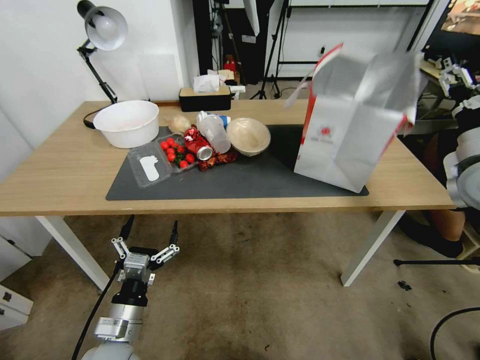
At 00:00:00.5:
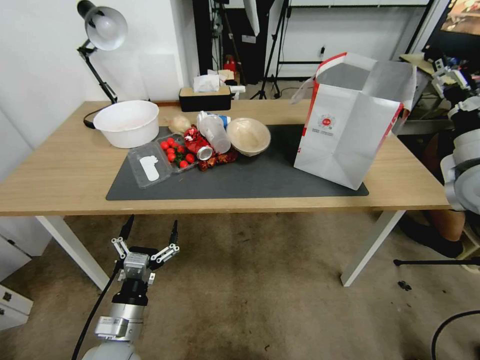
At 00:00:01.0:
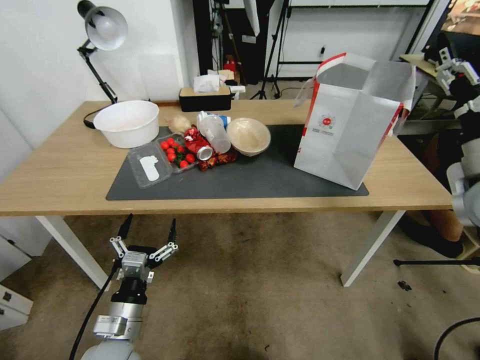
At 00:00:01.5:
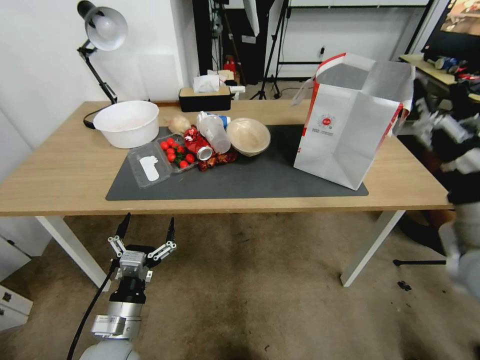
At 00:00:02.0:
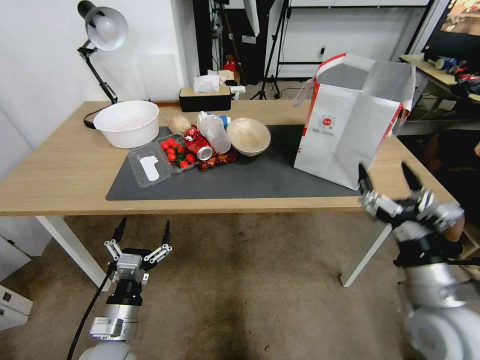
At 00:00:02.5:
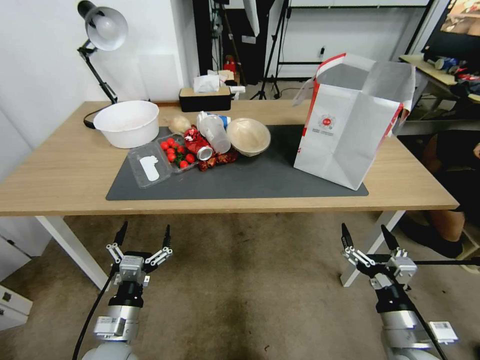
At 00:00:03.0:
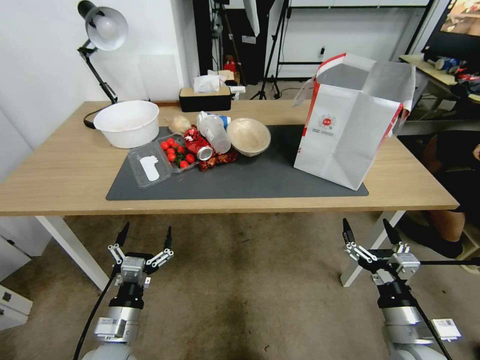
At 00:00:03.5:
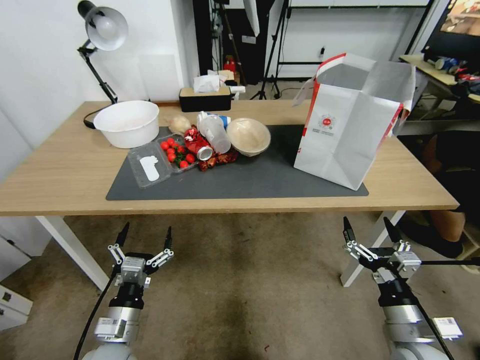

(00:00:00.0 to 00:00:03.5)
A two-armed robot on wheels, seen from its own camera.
Task of the whole recording: Pick up the food delivery bag from the floor and place it on the table.
00:00:00.0 - 00:00:02.0: The right gripper shifts approximately 25 cm backward, downward and to the left.
00:00:02.0 - 00:00:03.5: The right gripper moves downward, some 10 cm.

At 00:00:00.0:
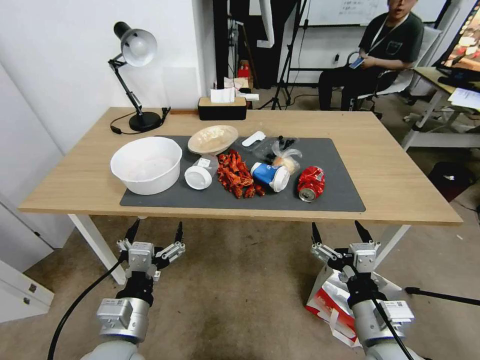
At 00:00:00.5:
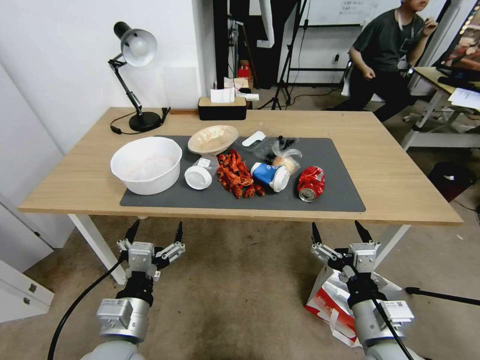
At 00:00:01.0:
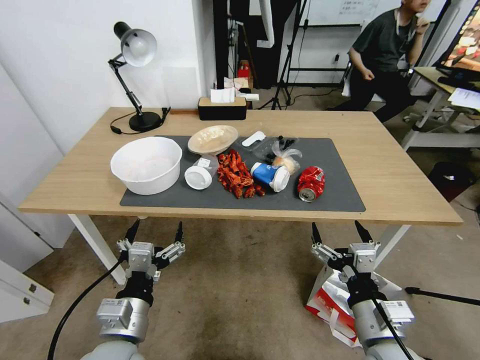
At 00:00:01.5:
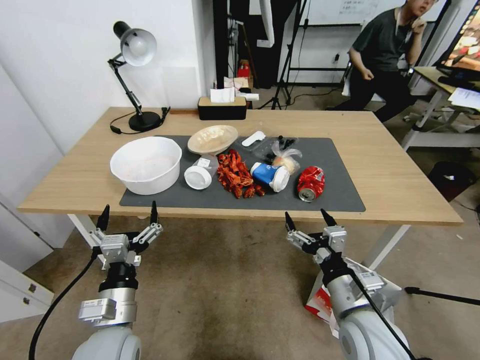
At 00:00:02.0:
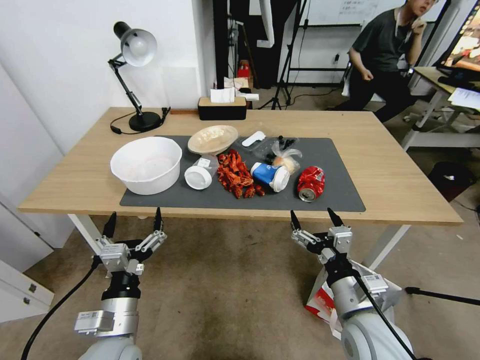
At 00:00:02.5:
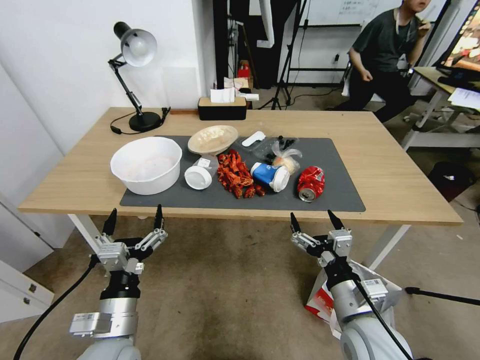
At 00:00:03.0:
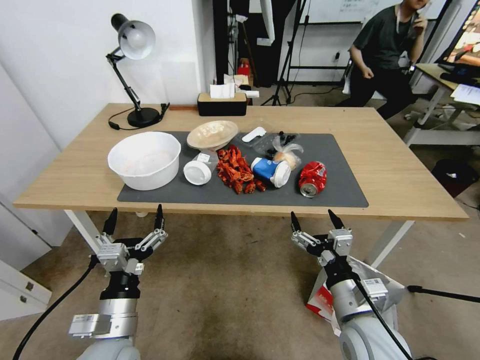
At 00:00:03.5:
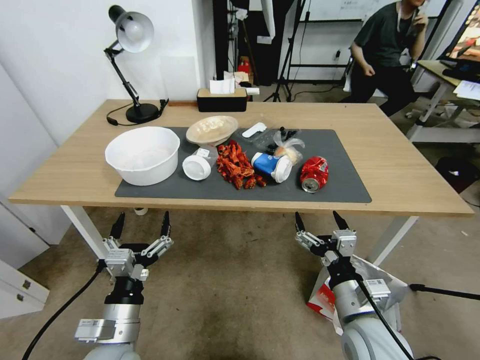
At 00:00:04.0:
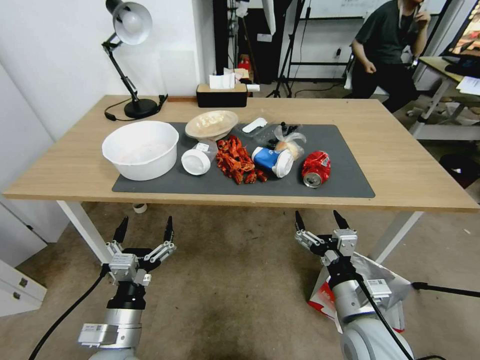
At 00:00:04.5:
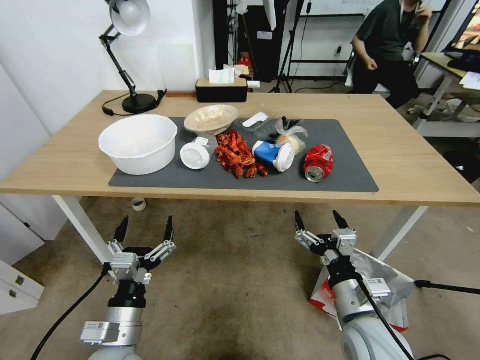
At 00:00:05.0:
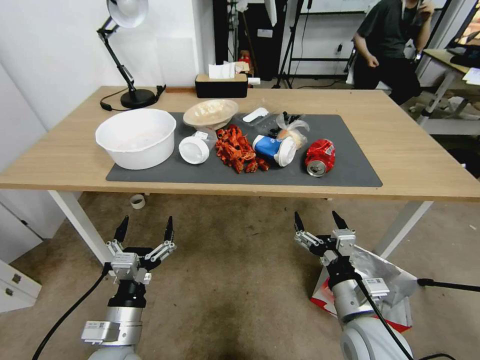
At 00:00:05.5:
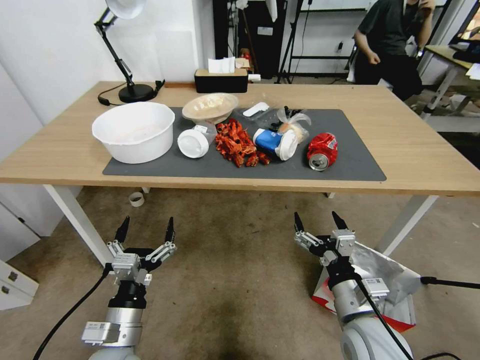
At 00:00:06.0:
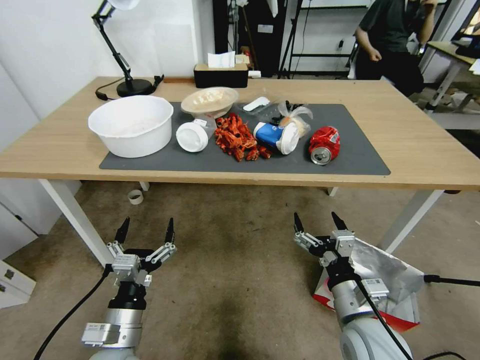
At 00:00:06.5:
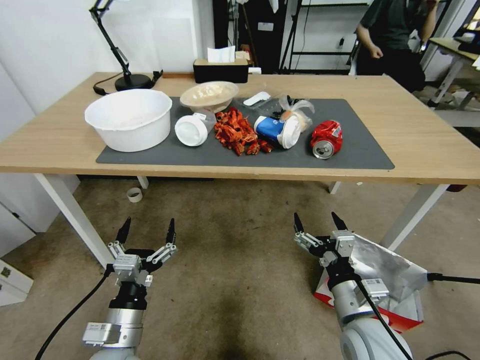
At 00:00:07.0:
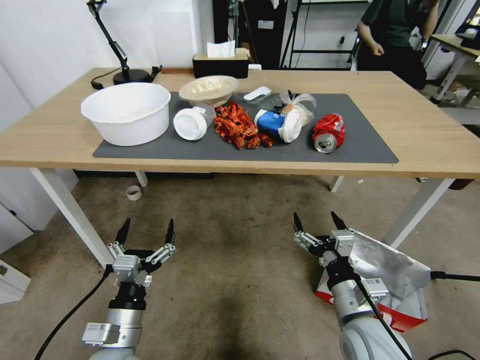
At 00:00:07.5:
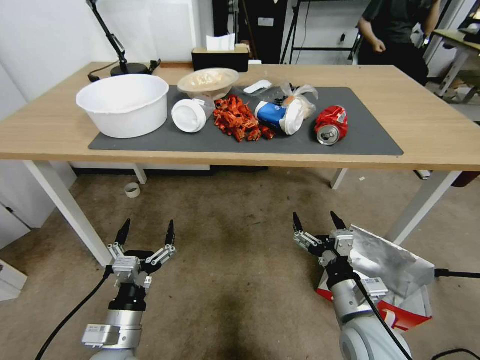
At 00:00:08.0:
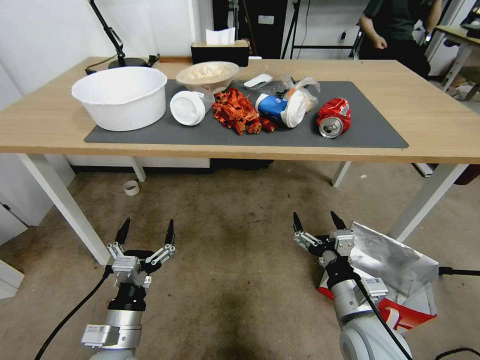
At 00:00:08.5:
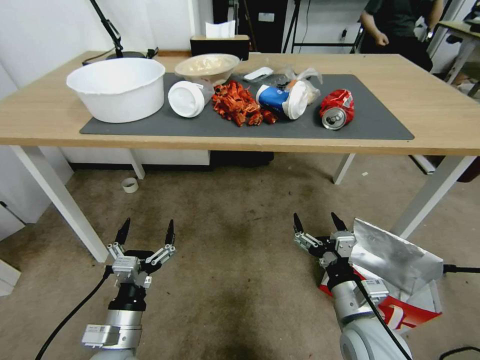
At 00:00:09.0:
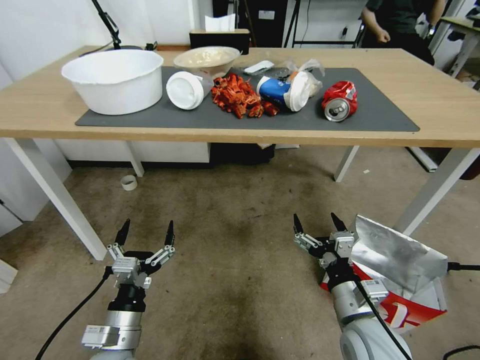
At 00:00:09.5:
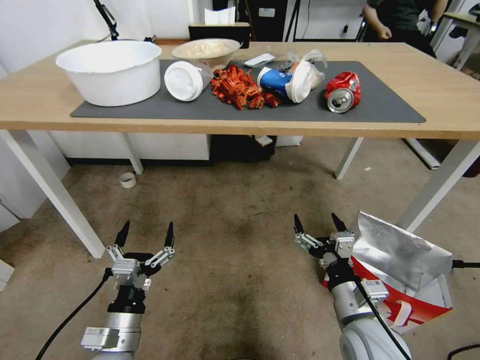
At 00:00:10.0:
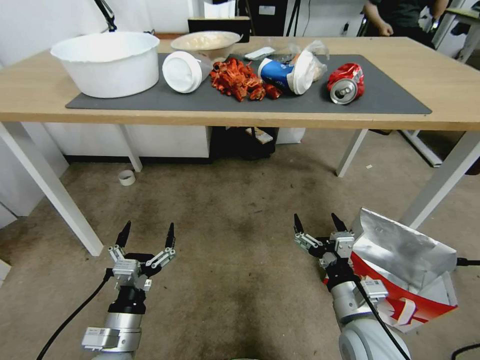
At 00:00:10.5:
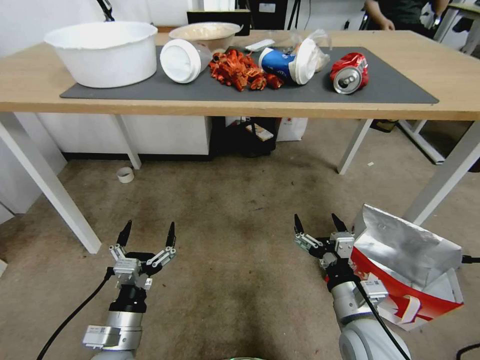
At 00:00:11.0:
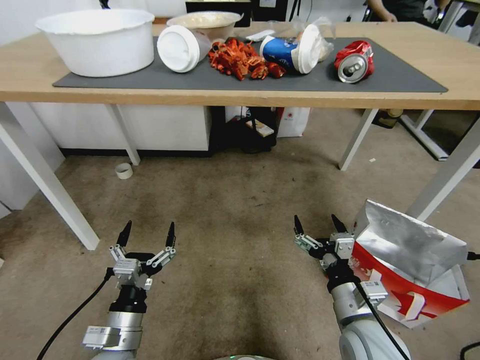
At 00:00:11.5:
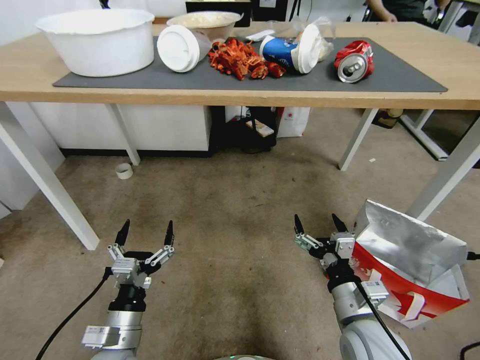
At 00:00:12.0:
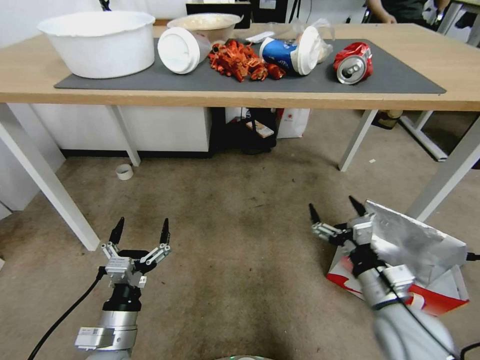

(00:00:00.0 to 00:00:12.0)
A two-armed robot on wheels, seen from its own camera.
Task of the whole recording: Pick up the food delivery bag from the floor and place it on the table.
00:00:10.0 - 00:00:12.0: The right gripper shifts by approximately 5 cm.

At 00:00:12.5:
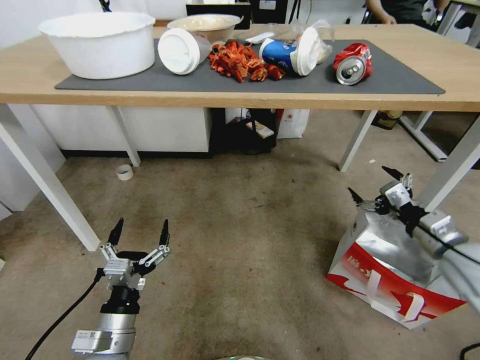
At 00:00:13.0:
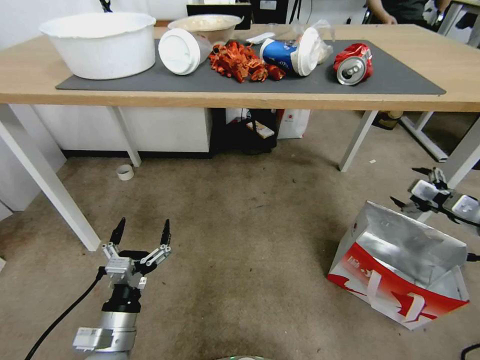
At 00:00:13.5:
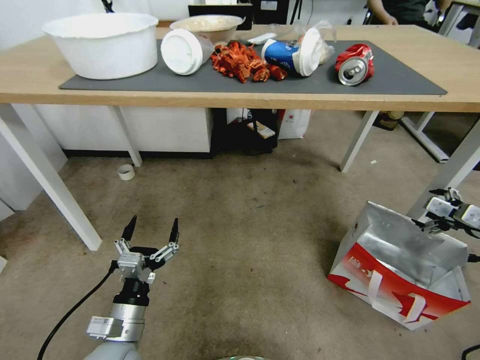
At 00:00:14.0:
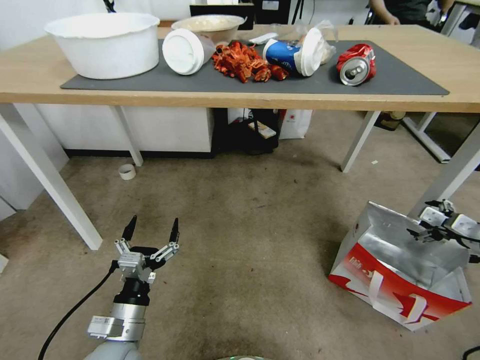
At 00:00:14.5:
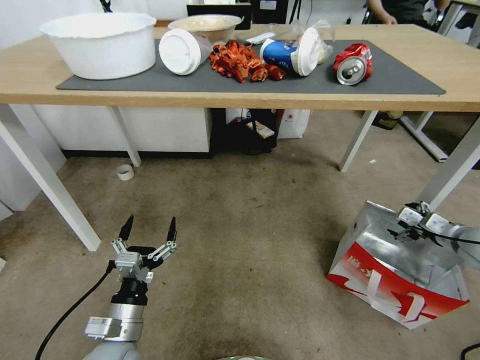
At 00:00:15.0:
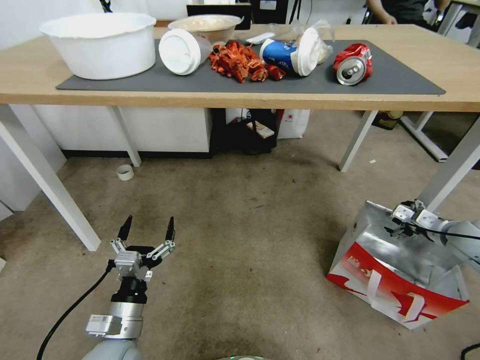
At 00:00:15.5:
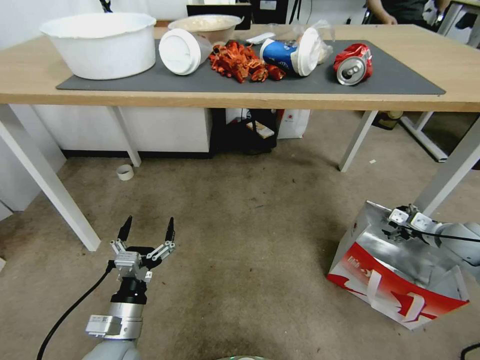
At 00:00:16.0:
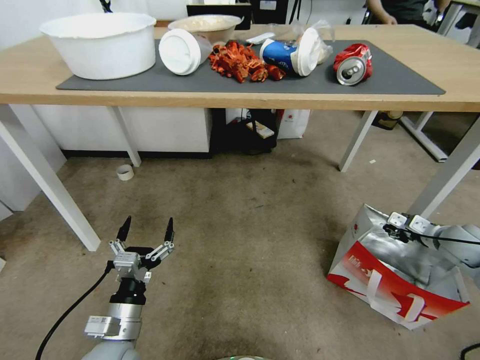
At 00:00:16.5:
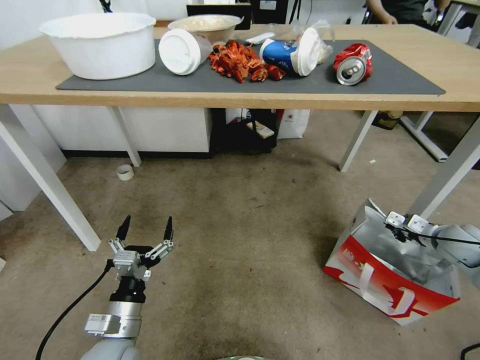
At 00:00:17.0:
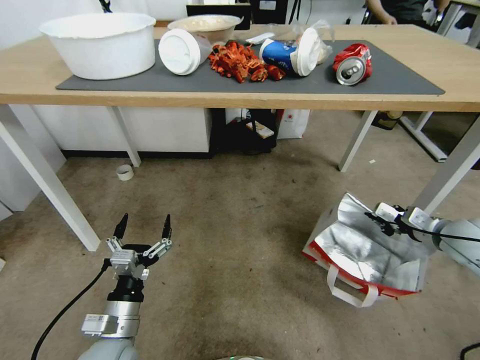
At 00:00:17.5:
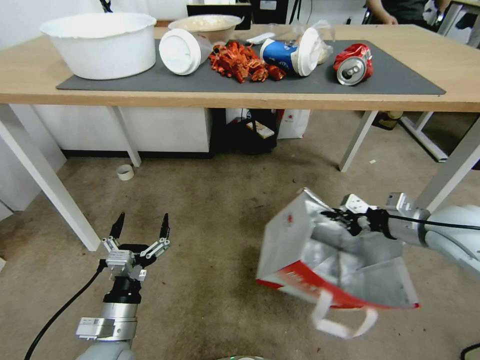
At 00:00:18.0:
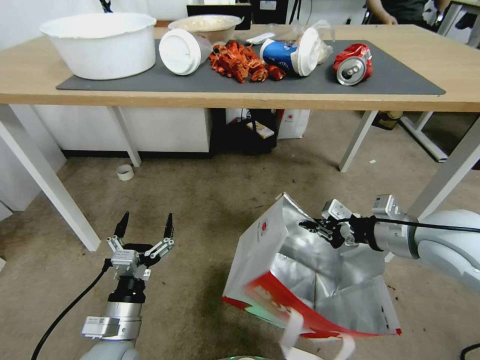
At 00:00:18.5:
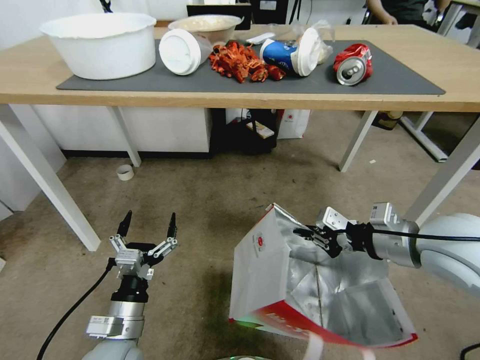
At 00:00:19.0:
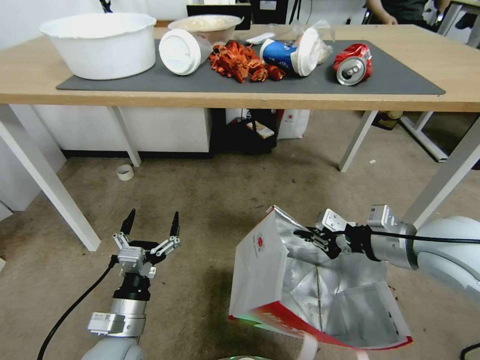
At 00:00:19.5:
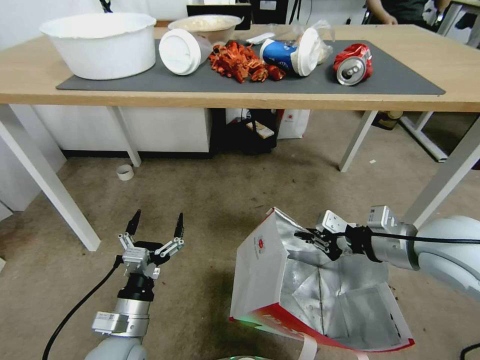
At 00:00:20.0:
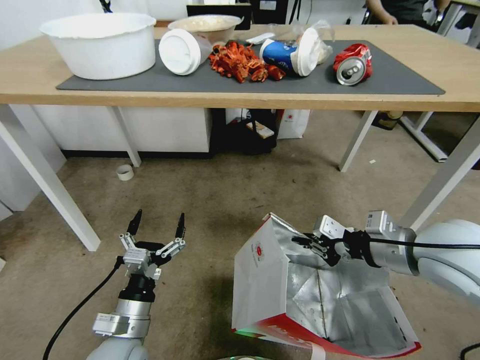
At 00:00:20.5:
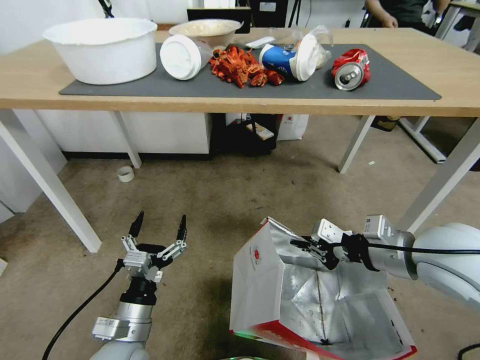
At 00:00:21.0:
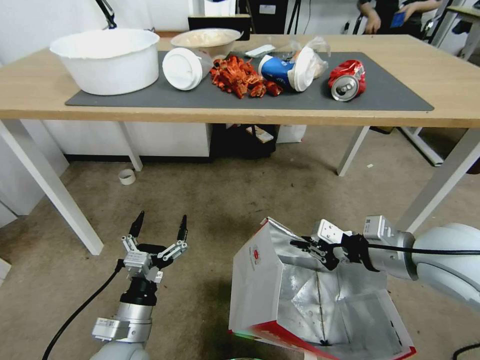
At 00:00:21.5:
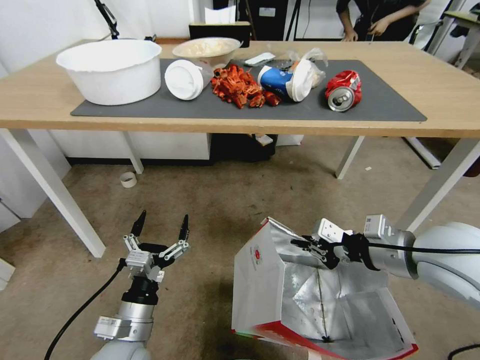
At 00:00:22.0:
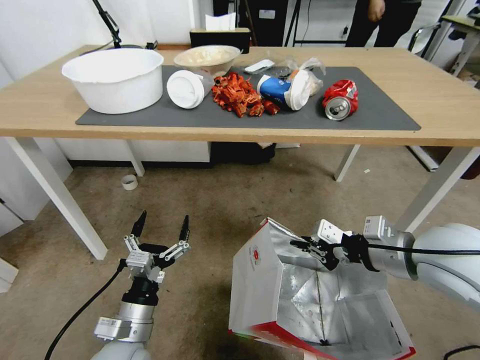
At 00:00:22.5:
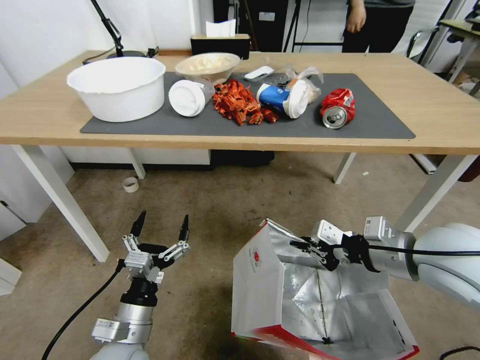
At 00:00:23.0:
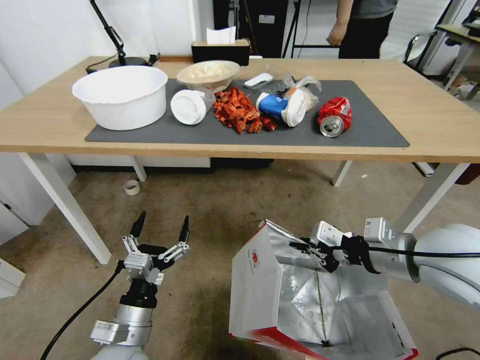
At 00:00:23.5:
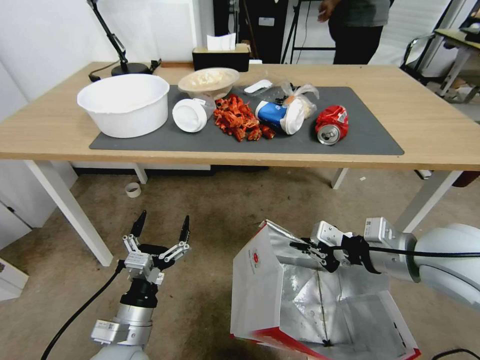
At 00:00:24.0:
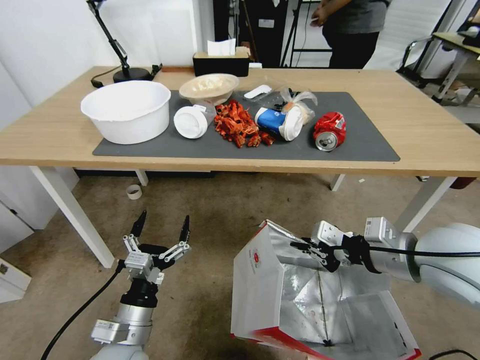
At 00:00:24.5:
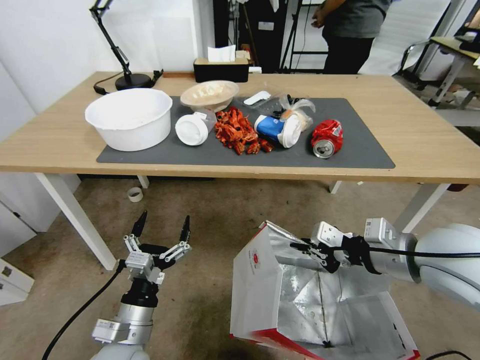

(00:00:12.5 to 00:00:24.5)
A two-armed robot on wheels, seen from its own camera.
Task of the whole recording: Pick up the food delivery bag from the floor and place it on the table.
00:00:12.5 - 00:00:14.5: The right gripper heads to the right, forward and downward, covering roughly 15 cm.
00:00:14.5 - 00:00:16.5: The right gripper closes.
00:00:16.5 - 00:00:18.5: The right gripper moves to the left, upward and backward, approximately 30 cm.
